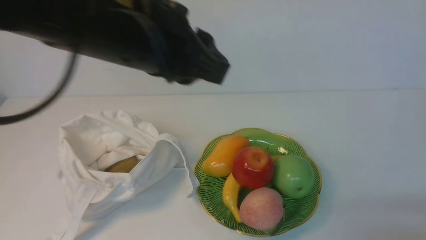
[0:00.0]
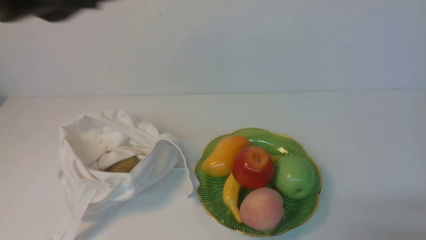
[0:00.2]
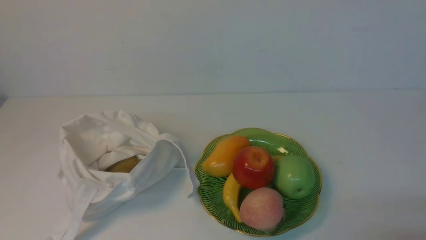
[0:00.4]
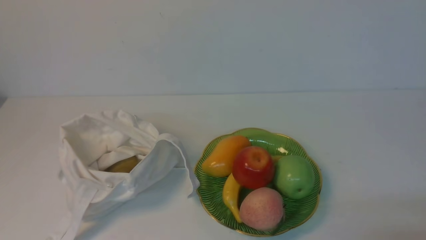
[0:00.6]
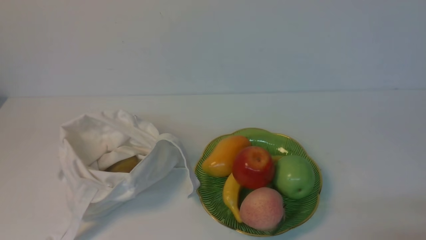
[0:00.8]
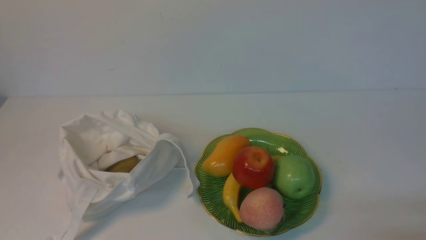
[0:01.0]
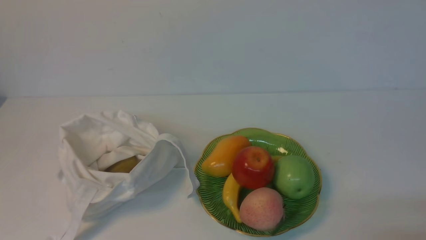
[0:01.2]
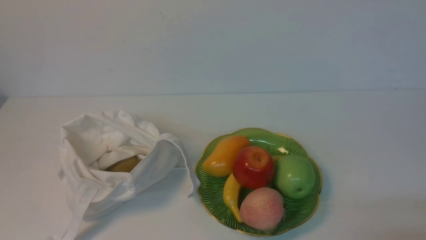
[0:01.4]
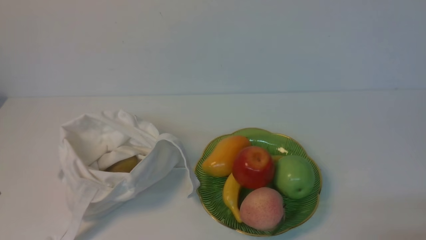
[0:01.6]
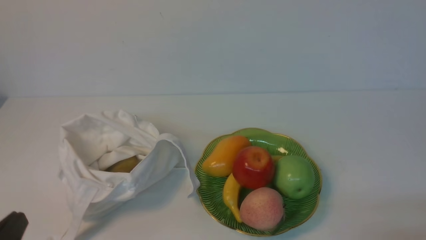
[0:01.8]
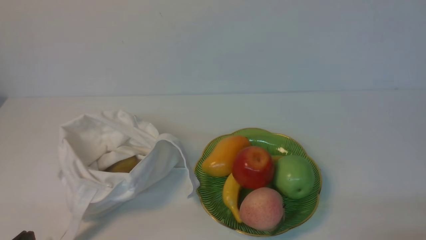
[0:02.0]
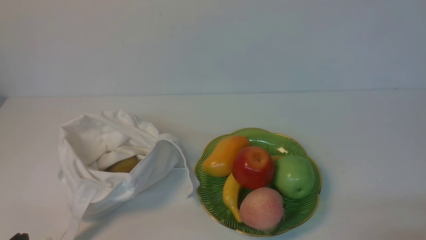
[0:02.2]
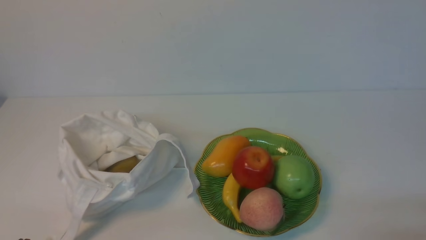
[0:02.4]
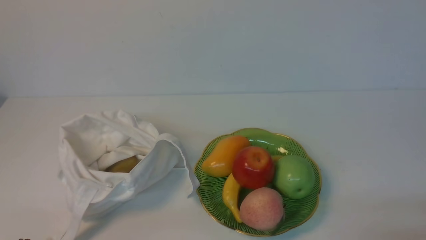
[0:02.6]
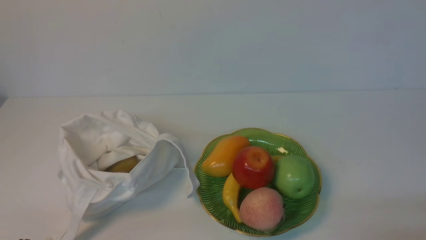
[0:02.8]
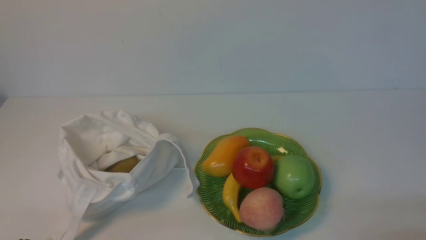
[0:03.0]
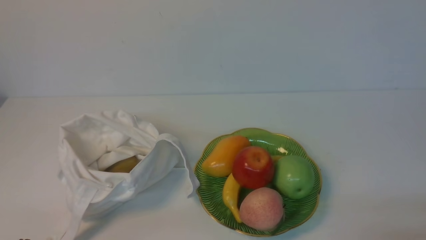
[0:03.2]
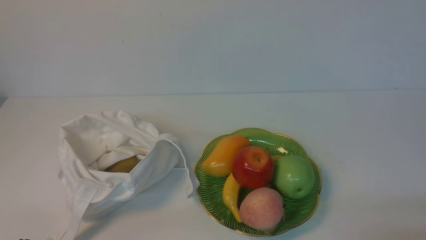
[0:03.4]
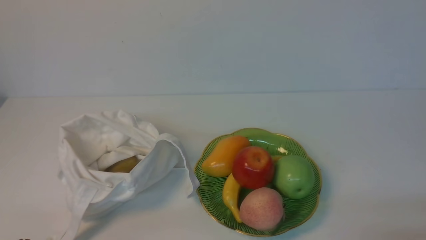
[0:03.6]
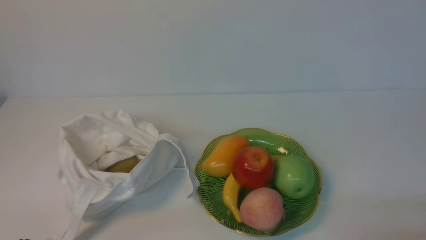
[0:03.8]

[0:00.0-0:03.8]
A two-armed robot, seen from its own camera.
0:00.0 to 0:01.2: The left gripper shifts some 25 cm backward and to the left.
0:02.6 to 0:03.8: The two grippers keep their place.
